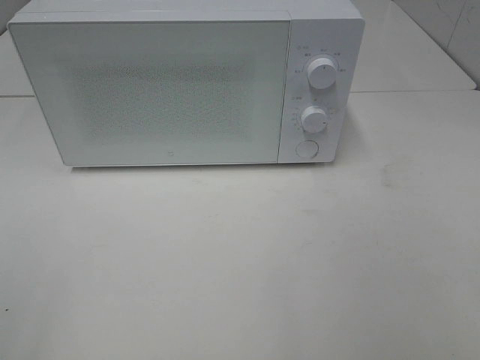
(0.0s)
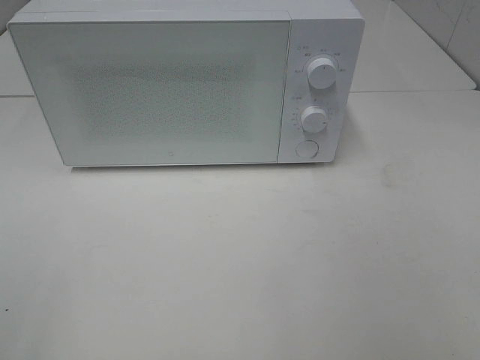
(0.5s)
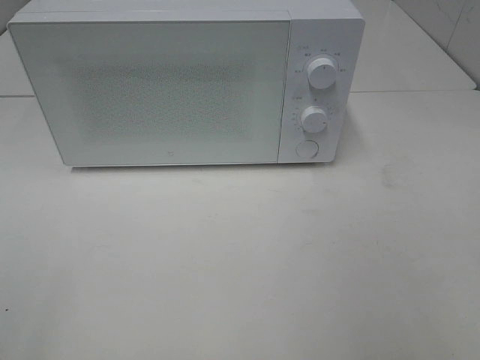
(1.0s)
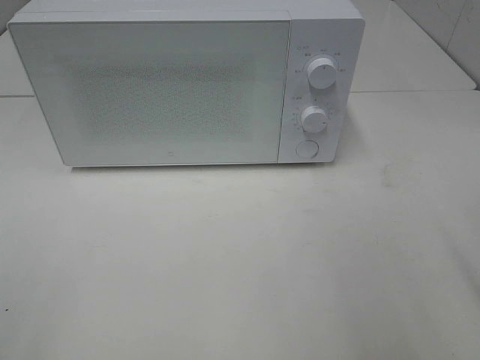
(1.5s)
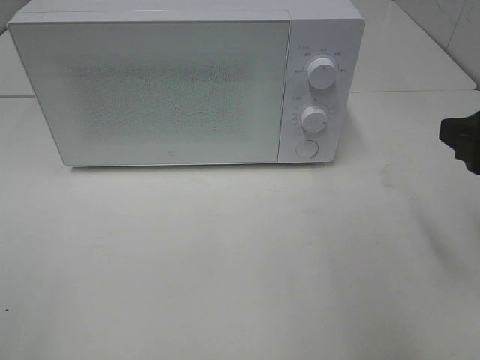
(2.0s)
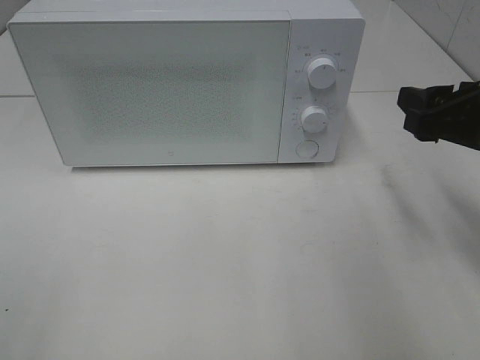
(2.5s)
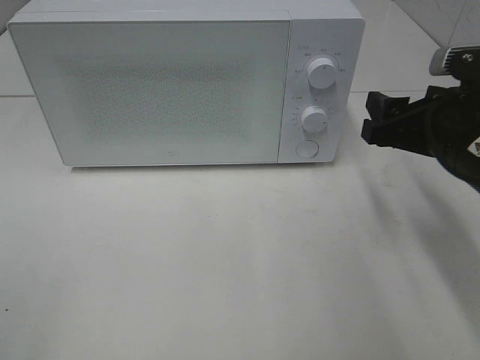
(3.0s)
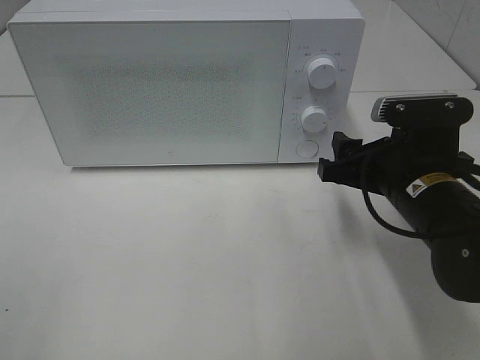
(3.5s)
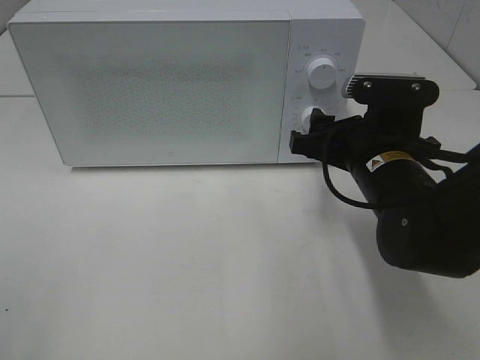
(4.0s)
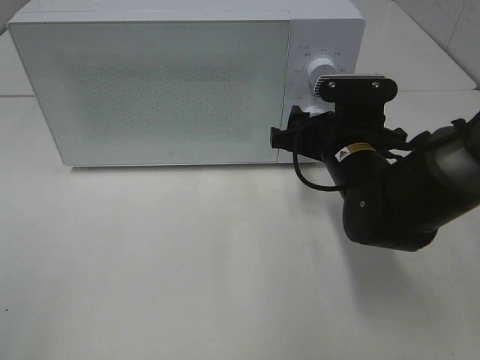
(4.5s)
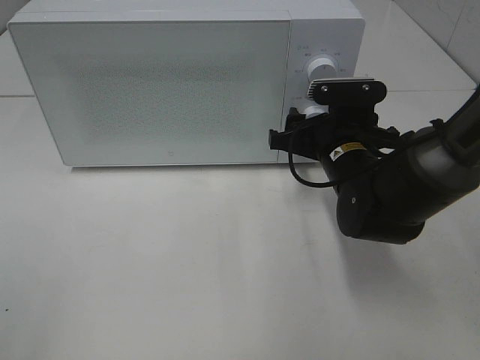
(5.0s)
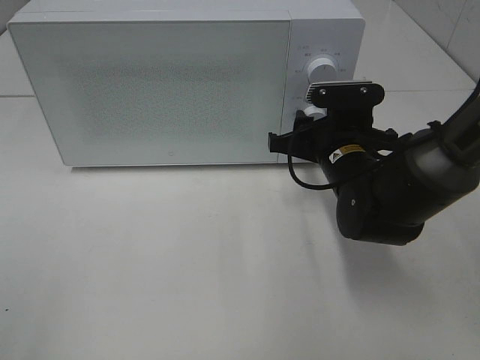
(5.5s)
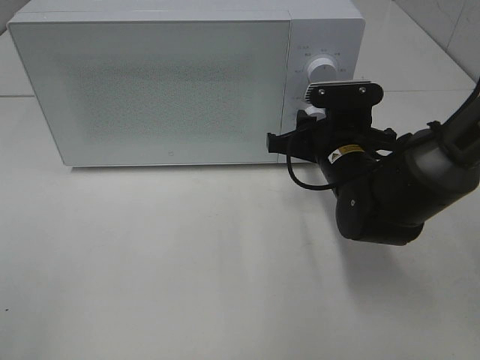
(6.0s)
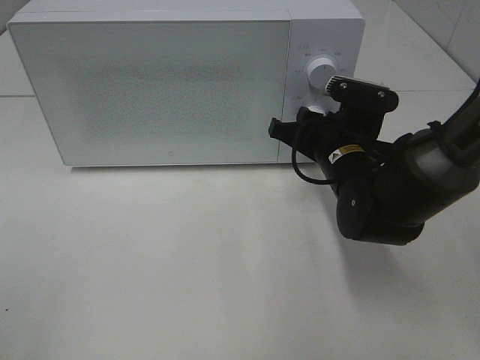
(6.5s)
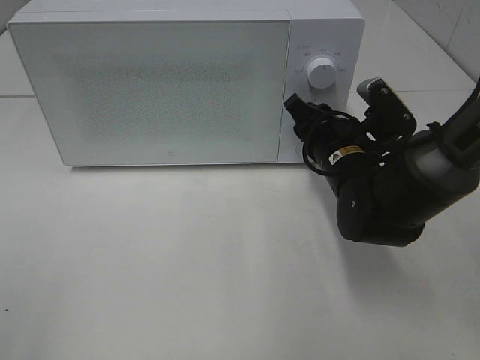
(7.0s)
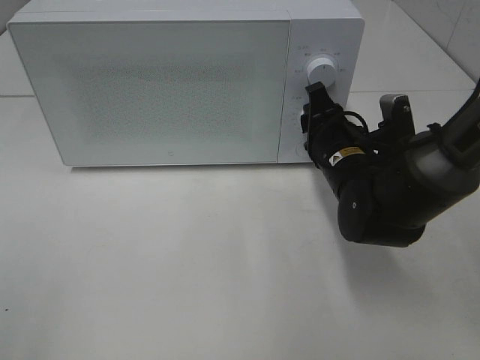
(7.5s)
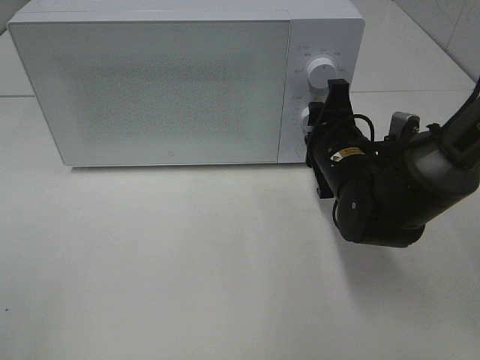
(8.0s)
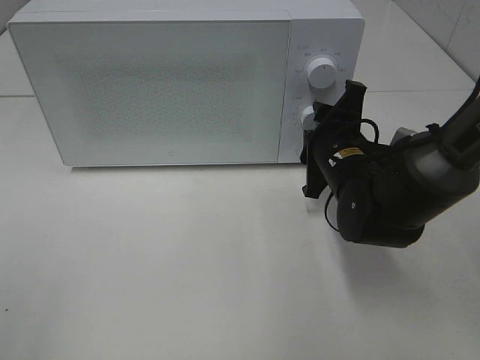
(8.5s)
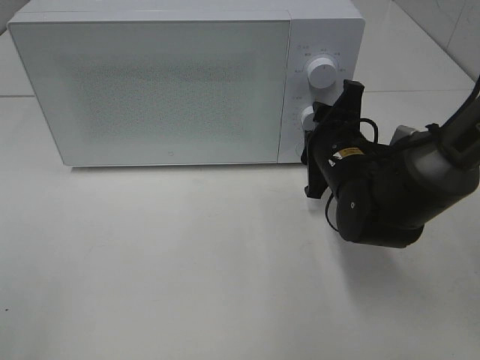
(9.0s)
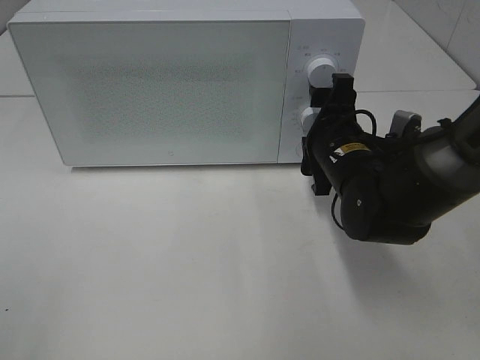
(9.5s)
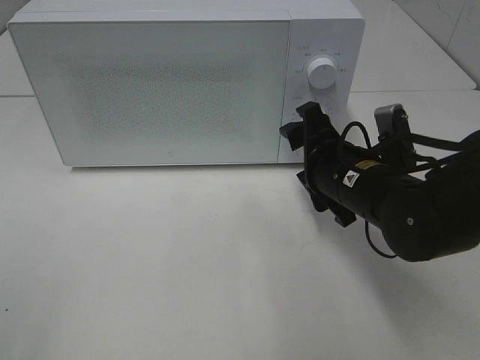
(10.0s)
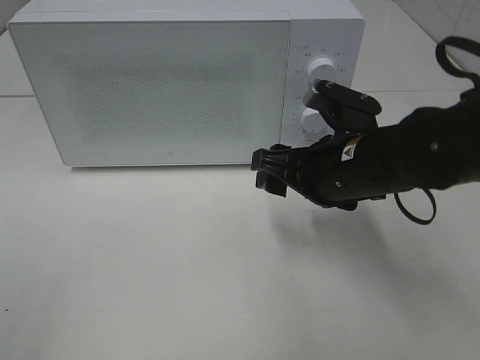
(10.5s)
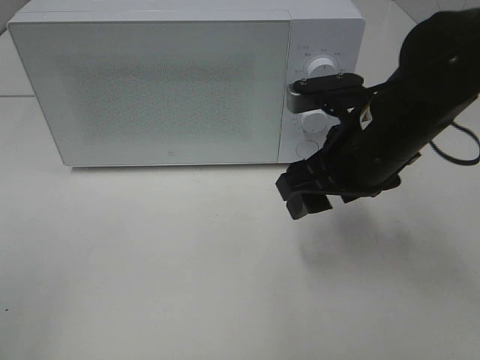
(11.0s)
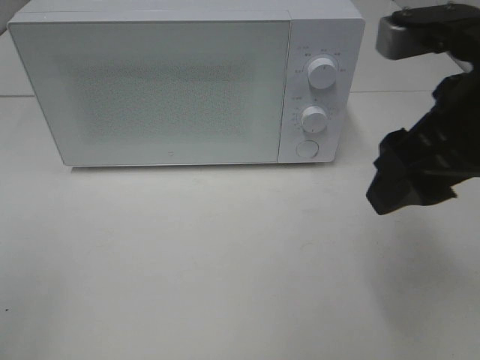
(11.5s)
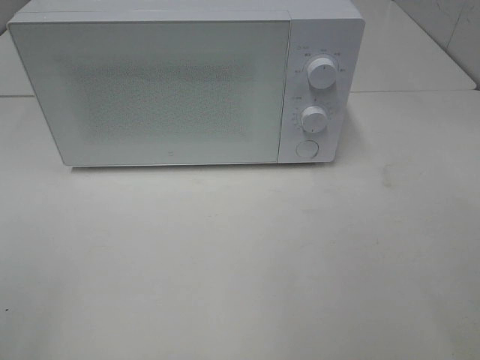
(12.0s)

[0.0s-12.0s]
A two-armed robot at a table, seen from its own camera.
Task of the whole recording: Heat the burger.
Step, 0.0s to 9.5s: Right hand: twist timer button.
0.0s to 2.0s: The right gripper moves forward, some 20 cm.
2.0s to 4.0s: The right gripper shifts about 15 cm to the left, downward and forward.
4.0s to 6.0s: The right gripper is displaced forward by approximately 5 cm, and closes.
10.0s to 12.0s: The right gripper heads upward, backward and to the right, covering approximately 30 cm.

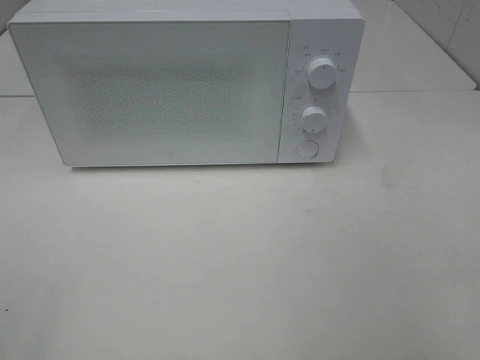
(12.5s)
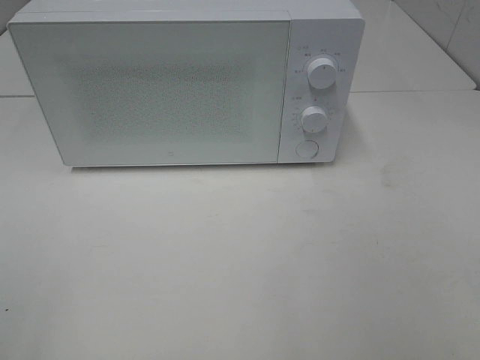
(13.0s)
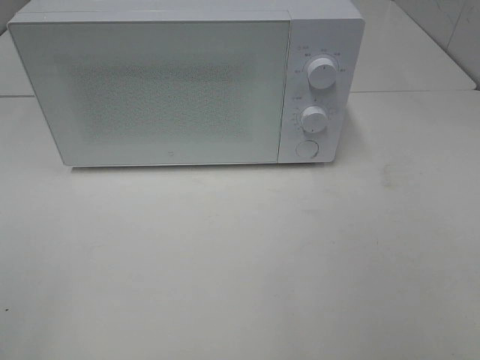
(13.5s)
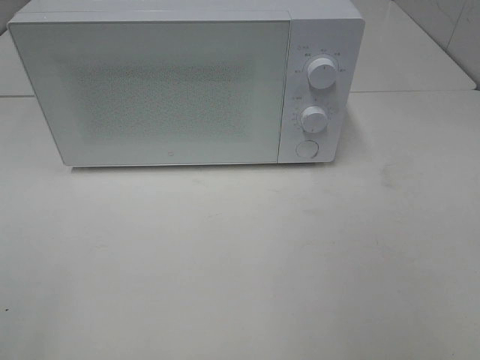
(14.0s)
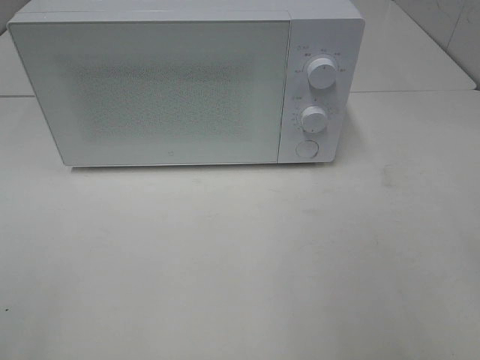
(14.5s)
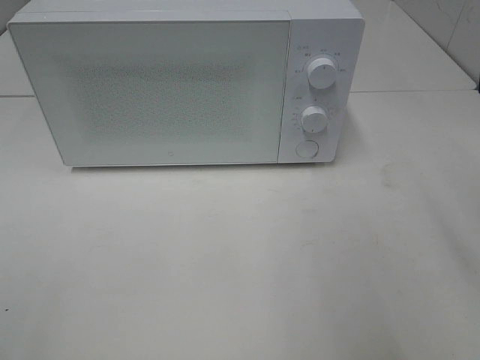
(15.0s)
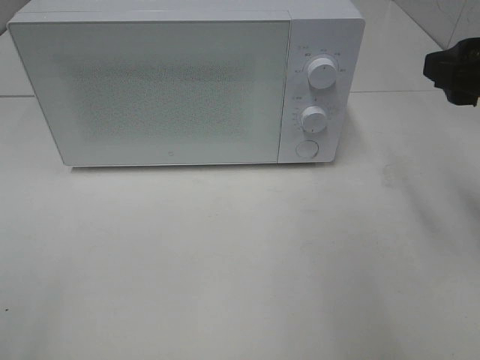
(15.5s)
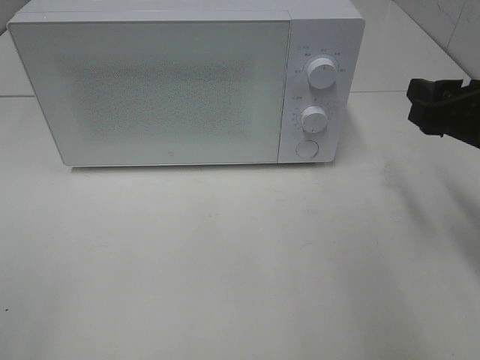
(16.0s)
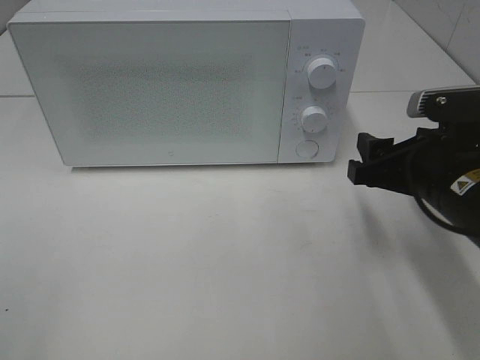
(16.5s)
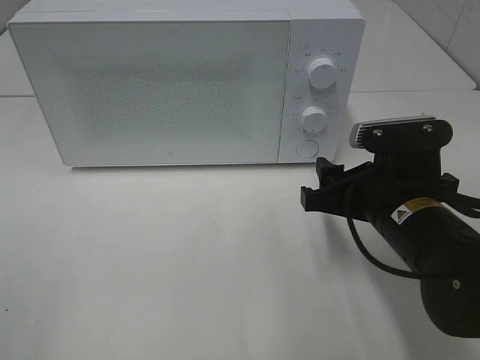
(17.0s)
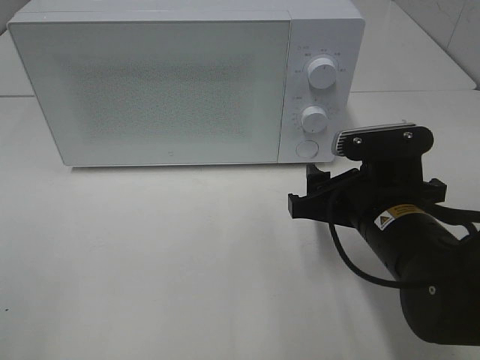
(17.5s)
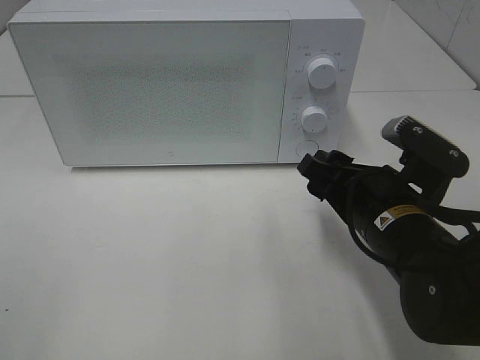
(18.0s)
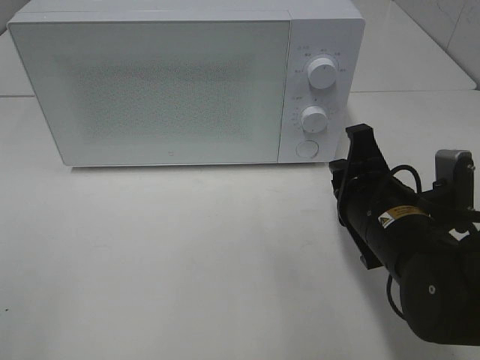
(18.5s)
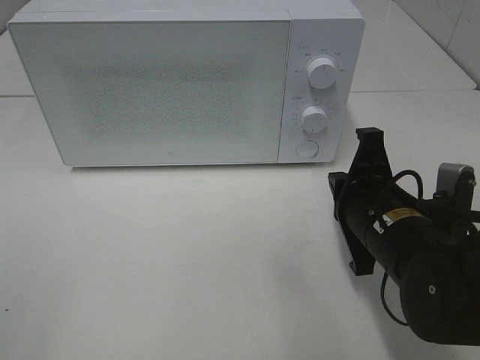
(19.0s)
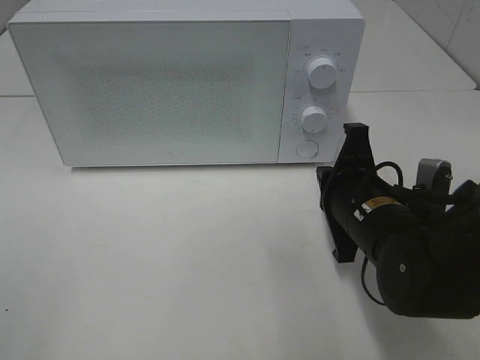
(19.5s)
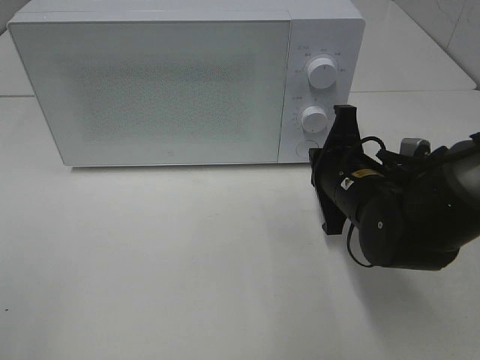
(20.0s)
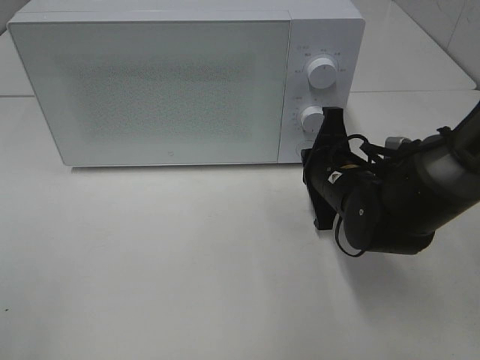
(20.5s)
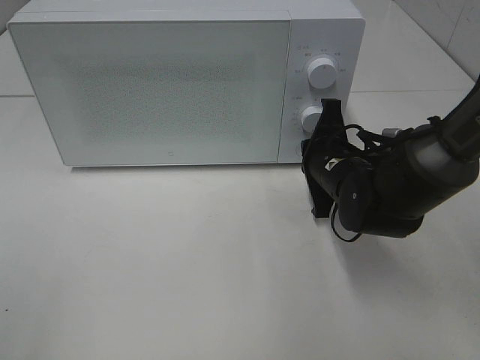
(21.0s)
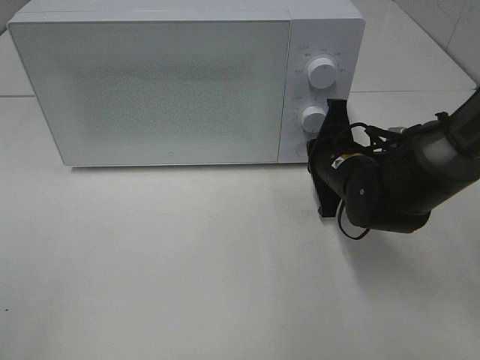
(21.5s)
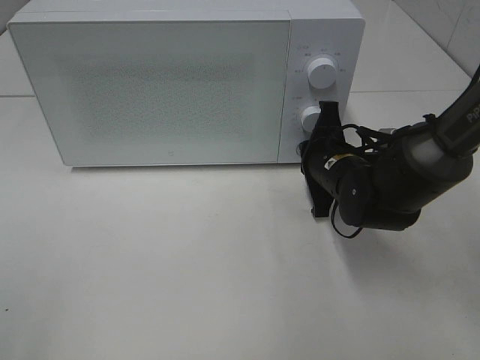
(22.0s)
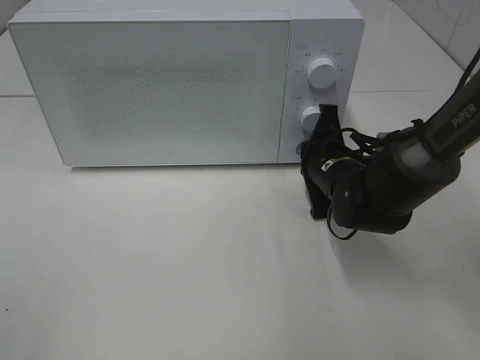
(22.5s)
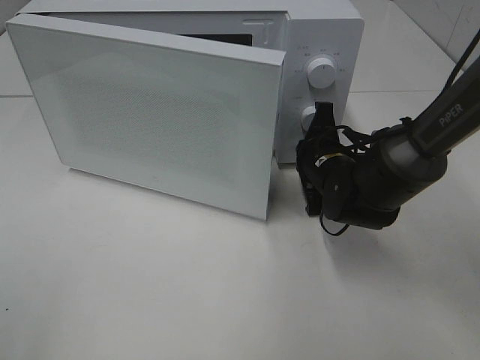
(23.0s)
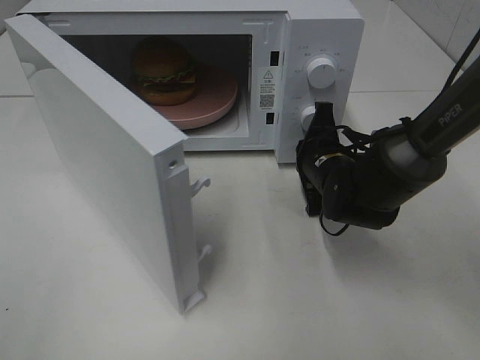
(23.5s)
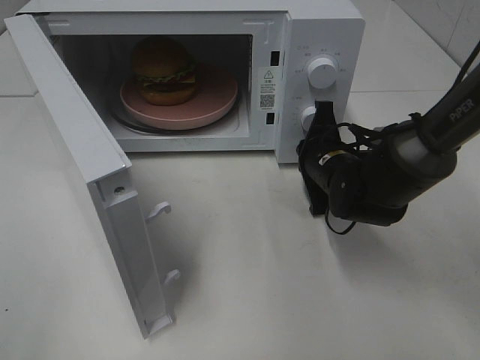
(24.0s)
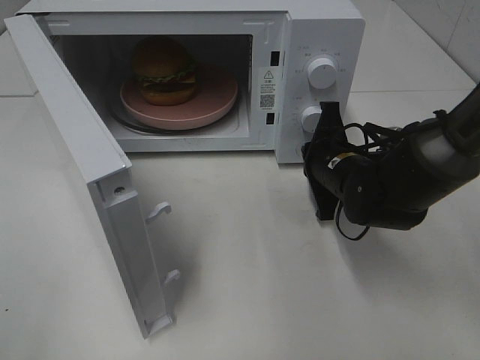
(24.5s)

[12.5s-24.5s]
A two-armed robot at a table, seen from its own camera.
Task of the whole recording: Heat the burger.
14.5s to 16.5s: The right gripper travels downward, forward and to the left by about 20 cm.
16.5s to 18.5s: The right gripper goes roughly 5 cm to the left, and closes.
18.5s to 20.5s: The right gripper heads forward, covering about 10 cm.
20.5s to 22.5s: The grippers stay close to where they were, moving slightly.

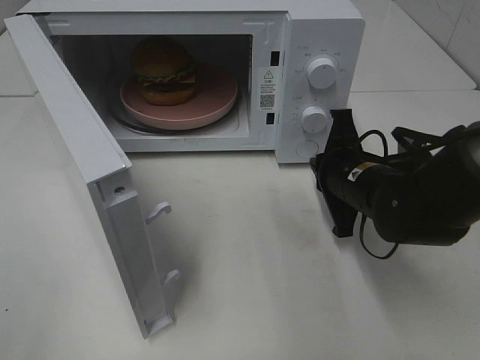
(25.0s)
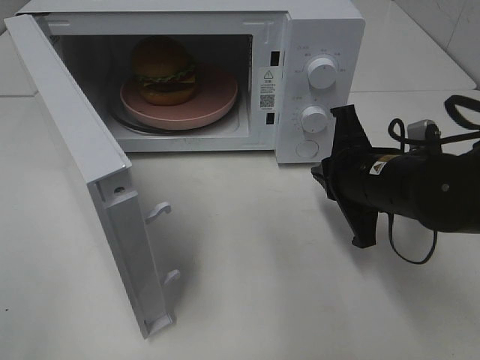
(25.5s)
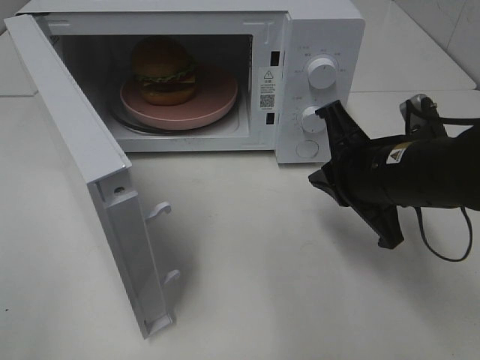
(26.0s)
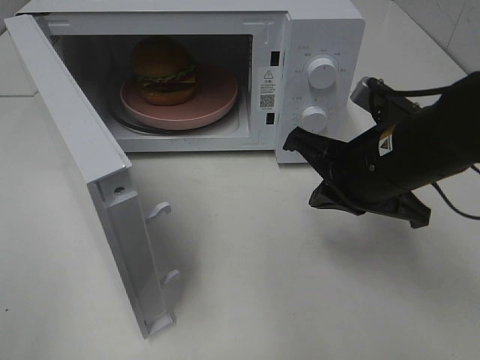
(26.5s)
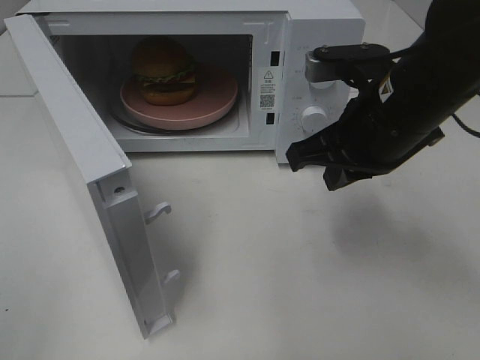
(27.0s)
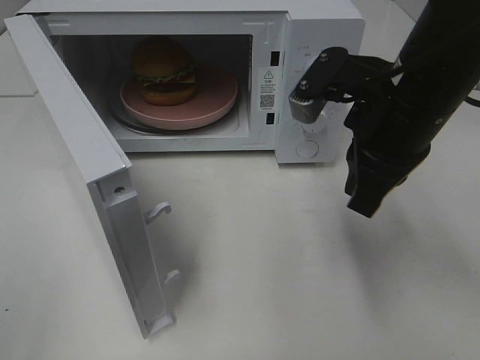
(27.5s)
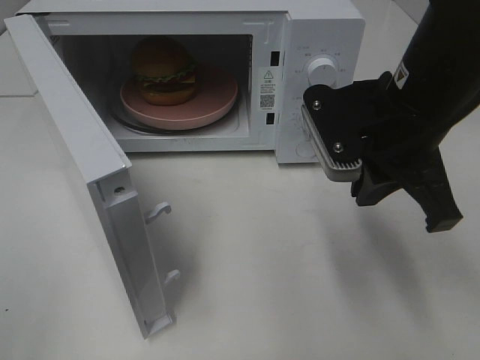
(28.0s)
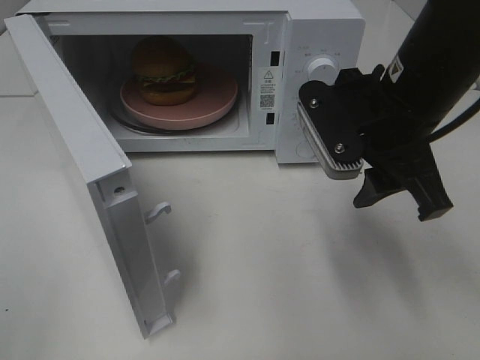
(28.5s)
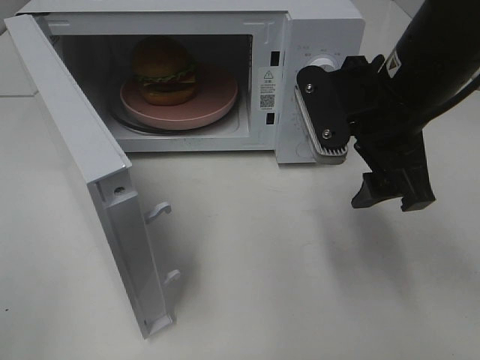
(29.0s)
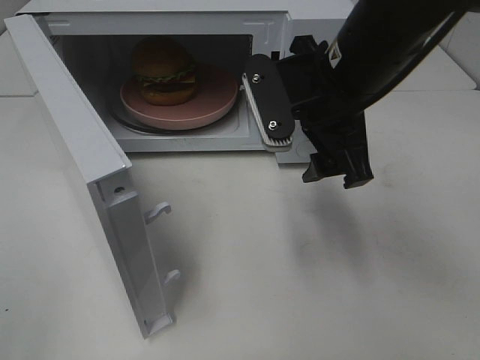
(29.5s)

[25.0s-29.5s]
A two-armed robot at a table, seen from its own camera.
Task of the whole recording: Heat the burger.
25.0s to 27.0s: The right gripper heads upward, covering some 10 cm.
27.0s to 29.5s: The right gripper shifts by some 5 cm, and opens.
